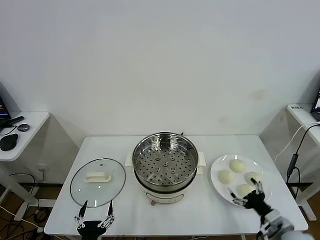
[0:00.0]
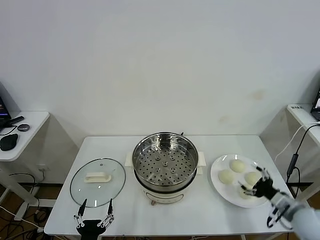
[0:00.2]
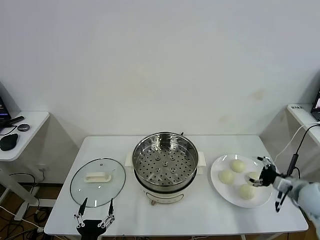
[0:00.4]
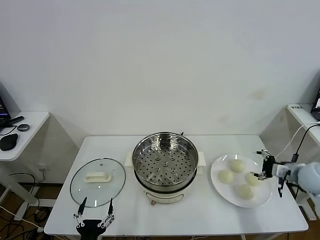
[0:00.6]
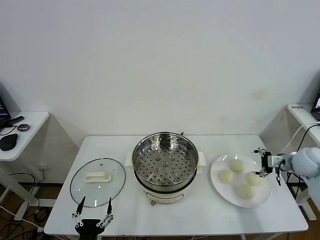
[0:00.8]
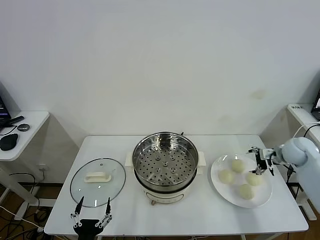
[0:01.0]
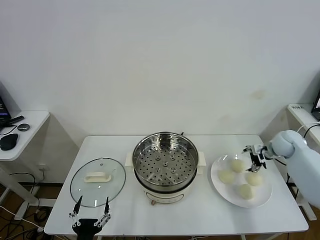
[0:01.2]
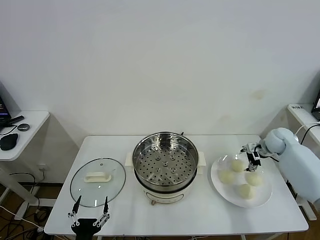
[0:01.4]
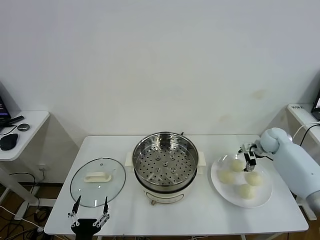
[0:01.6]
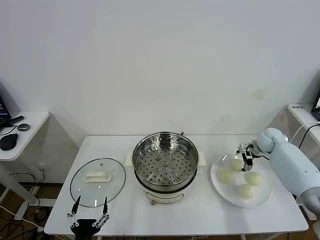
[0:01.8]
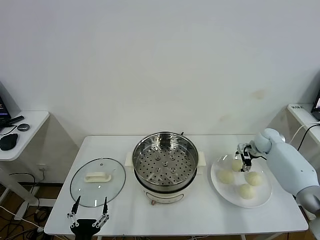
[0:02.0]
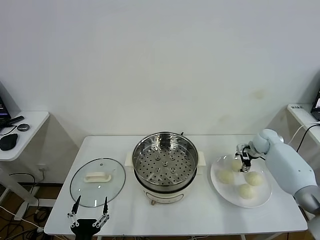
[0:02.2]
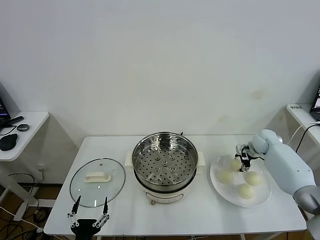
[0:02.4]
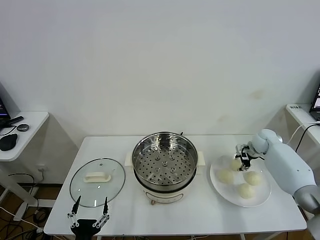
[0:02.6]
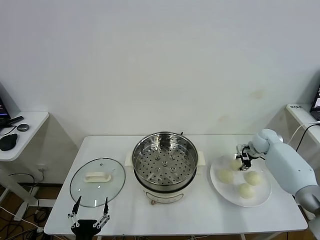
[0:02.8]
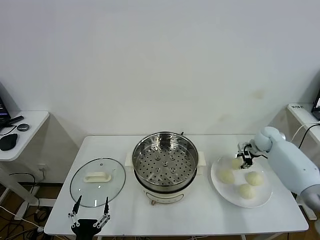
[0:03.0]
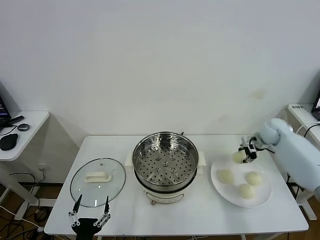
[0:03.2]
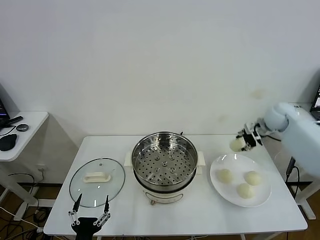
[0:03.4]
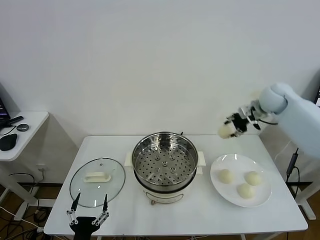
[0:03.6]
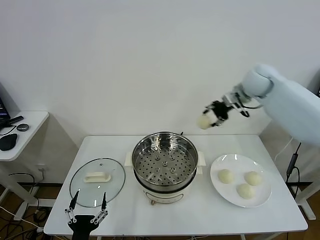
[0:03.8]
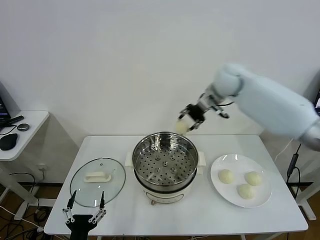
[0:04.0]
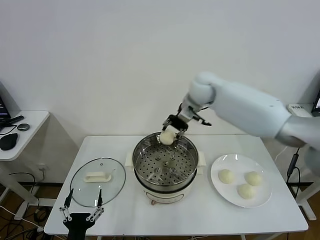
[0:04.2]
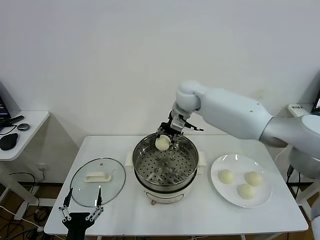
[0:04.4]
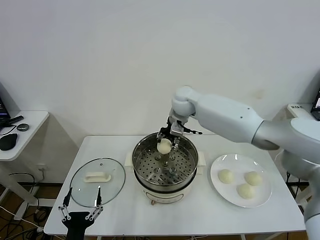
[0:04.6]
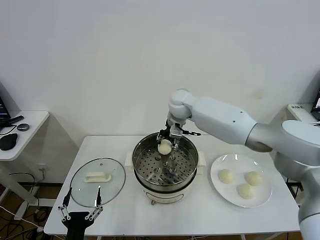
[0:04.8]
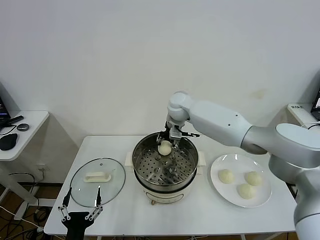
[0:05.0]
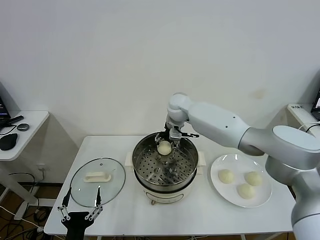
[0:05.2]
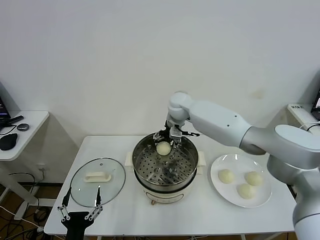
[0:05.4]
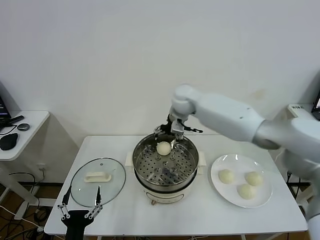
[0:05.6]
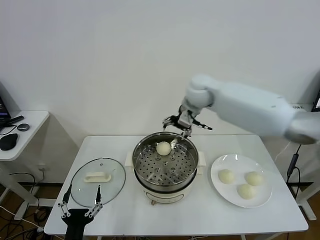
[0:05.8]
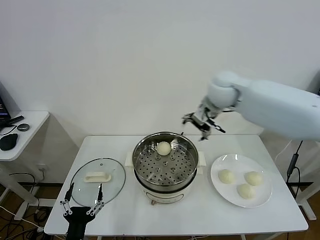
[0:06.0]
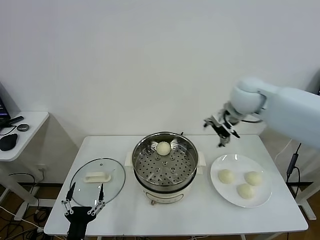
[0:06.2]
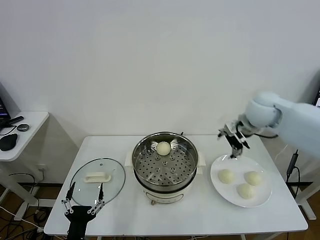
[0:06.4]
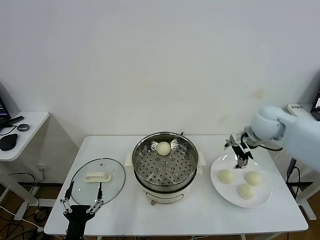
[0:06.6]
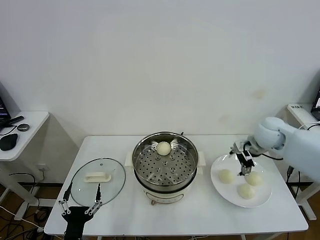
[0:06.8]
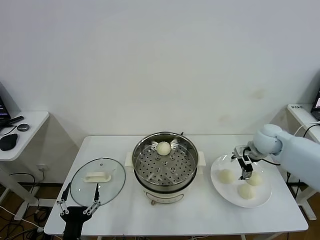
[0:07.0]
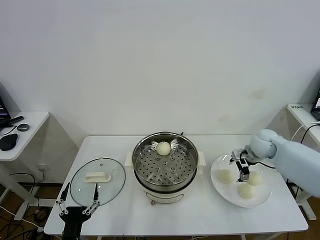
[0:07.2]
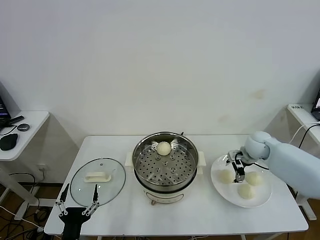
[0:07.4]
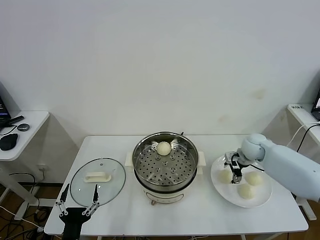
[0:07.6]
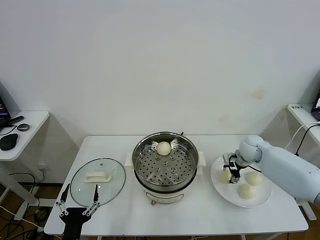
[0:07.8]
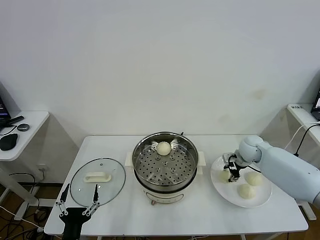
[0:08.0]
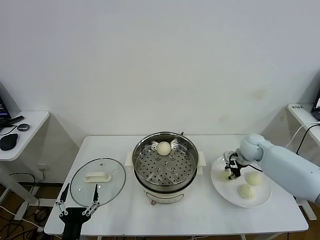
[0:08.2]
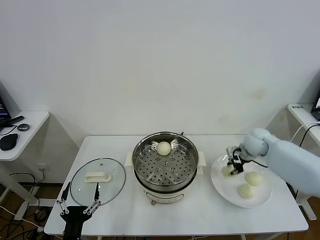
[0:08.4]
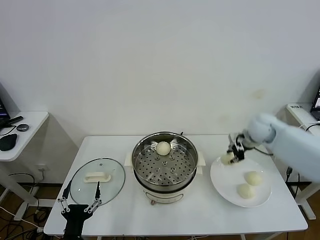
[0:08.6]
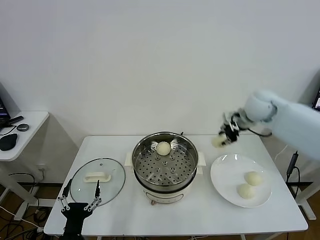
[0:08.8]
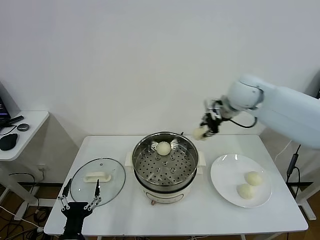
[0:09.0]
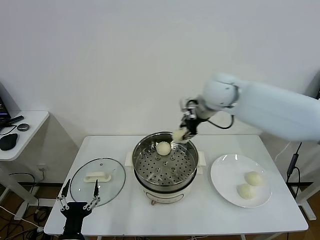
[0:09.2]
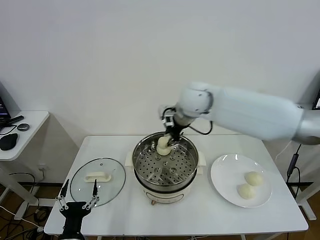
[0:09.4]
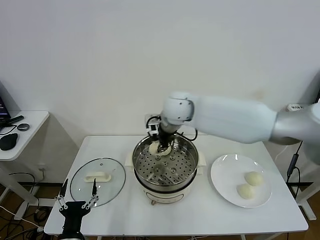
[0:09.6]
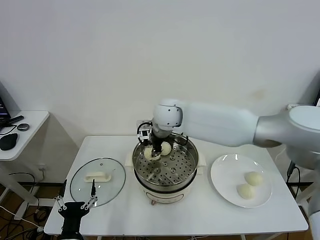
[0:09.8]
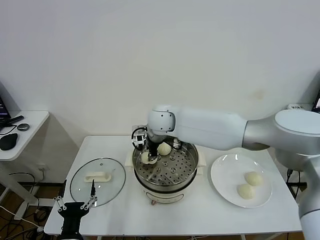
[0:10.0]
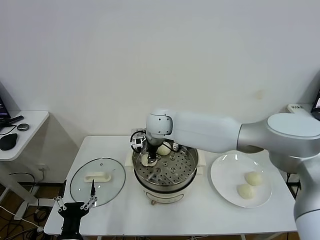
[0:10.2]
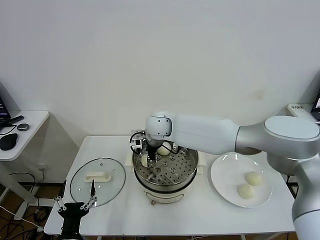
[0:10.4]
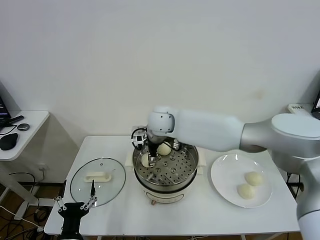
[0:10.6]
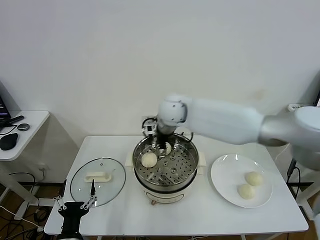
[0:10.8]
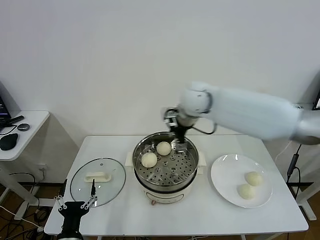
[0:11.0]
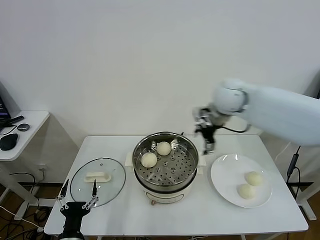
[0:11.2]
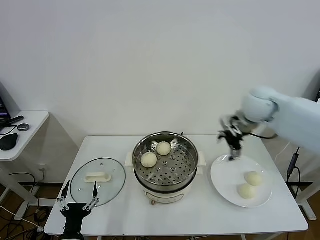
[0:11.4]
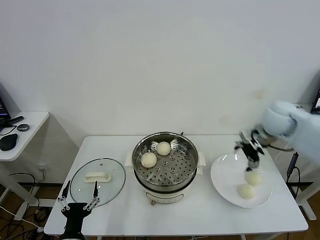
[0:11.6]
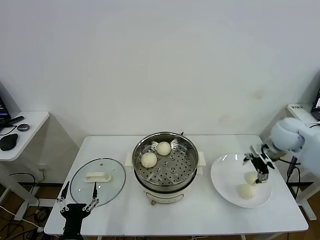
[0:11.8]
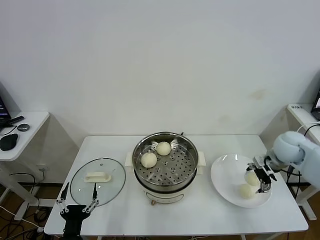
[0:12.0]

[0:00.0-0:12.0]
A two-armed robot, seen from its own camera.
Task of the whole recording: take steamed baozi put them in steamer.
Step, 0.0 to 2.6 s: Grasp the baozi in the plate with right gripper.
Step, 2.8 to 5.4 s: Place the baozi on the steamer with right gripper.
Step, 5.6 to 8.0 s: Grasp the baozi in the plate with right gripper.
Step, 8.2 to 10.6 s: Place the baozi on the steamer with right gripper.
1.6 to 3.0 s: The right gripper closes its fingers.
3.0 to 4.4 s: The right gripper goes some 40 cm to the left and upward.
4.4 to 6.0 s: The right gripper goes approximately 10 cm to the right, upward and backward, and opens.
6.0 to 7.6 s: The right gripper is displaced downward and to the right by about 30 cm.
7.6 to 9.0 s: The right gripper shifts roughly 25 cm upward and to the left, and closes.
9.0 to 10.4 s: The right gripper travels to the left and downward by some 25 cm, and opens its fingers.
10.4 to 12.0 s: The right gripper is displaced to the right by approximately 40 cm, and opens.

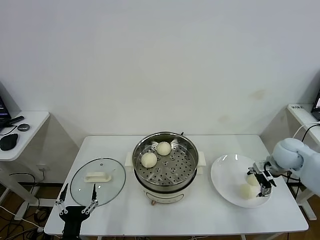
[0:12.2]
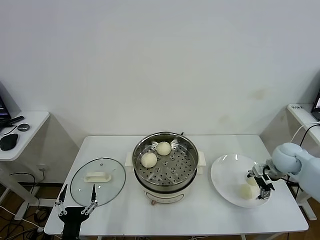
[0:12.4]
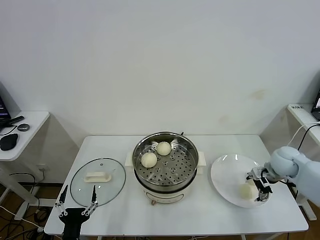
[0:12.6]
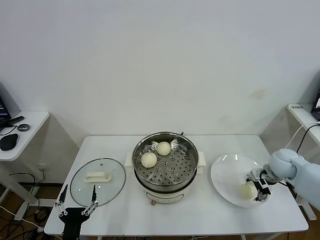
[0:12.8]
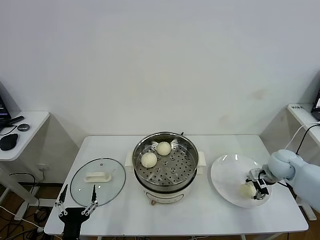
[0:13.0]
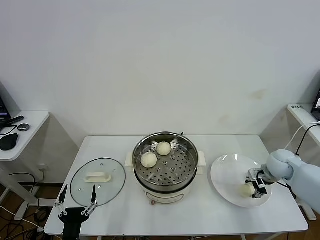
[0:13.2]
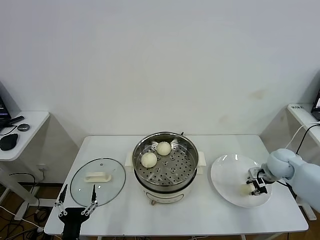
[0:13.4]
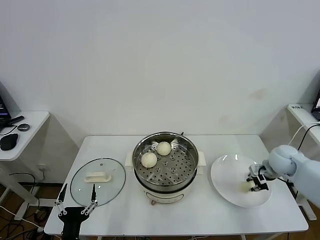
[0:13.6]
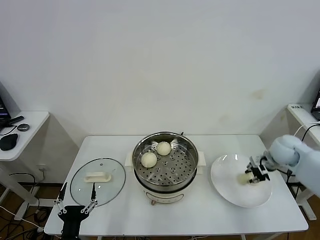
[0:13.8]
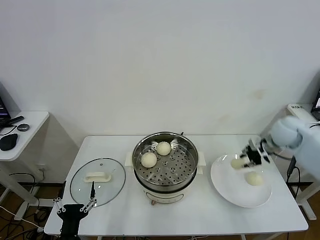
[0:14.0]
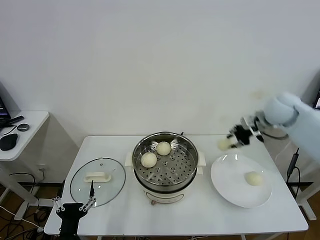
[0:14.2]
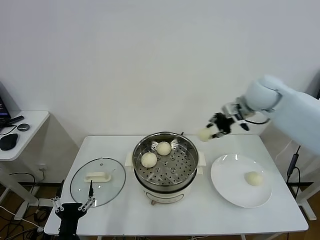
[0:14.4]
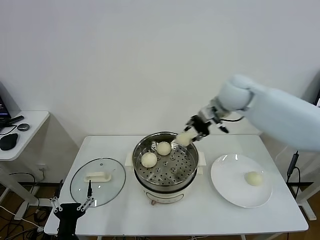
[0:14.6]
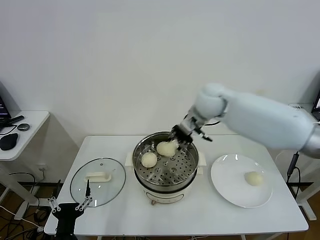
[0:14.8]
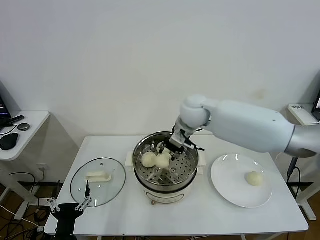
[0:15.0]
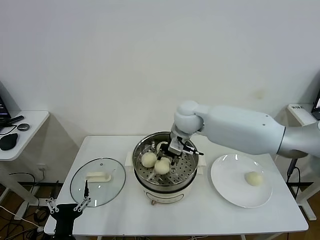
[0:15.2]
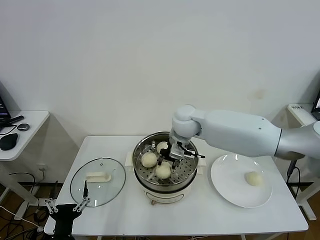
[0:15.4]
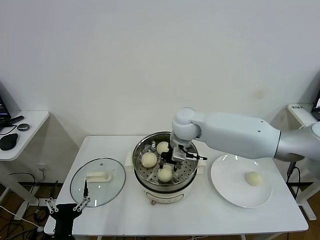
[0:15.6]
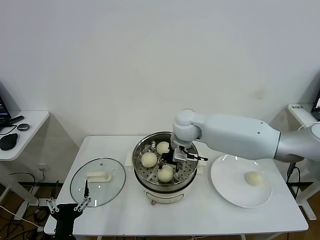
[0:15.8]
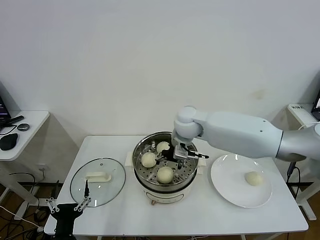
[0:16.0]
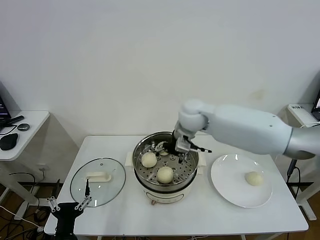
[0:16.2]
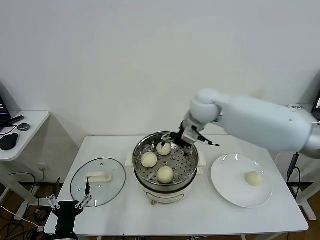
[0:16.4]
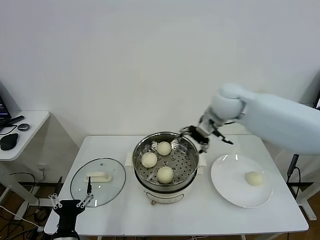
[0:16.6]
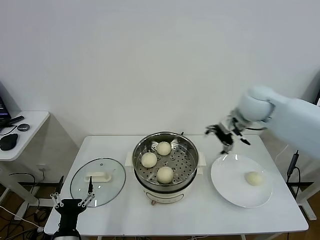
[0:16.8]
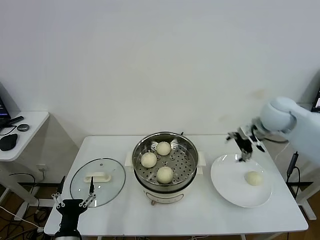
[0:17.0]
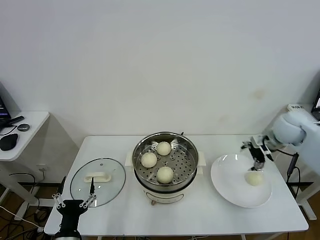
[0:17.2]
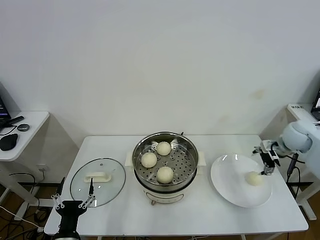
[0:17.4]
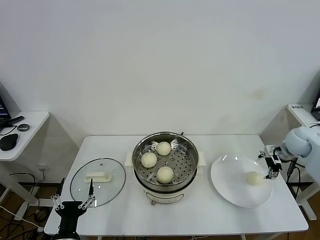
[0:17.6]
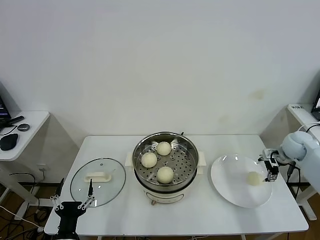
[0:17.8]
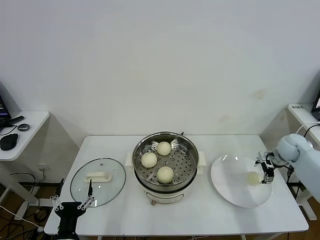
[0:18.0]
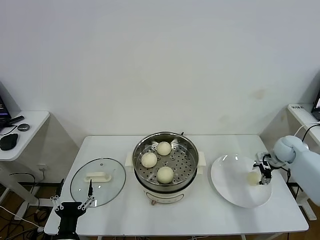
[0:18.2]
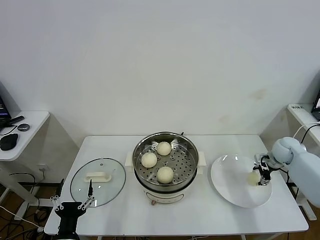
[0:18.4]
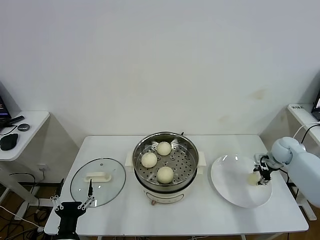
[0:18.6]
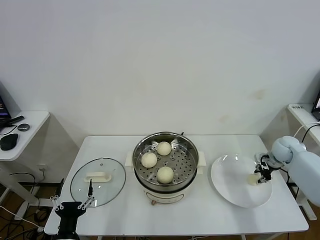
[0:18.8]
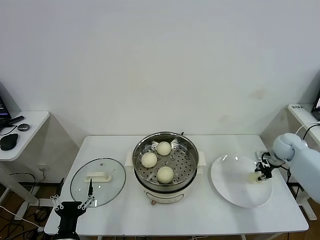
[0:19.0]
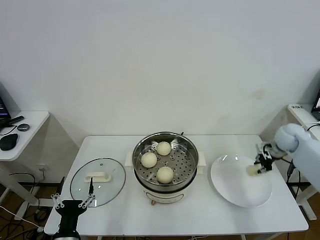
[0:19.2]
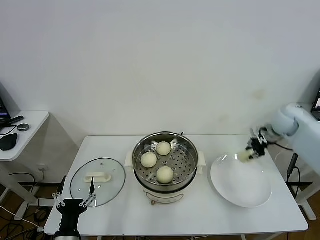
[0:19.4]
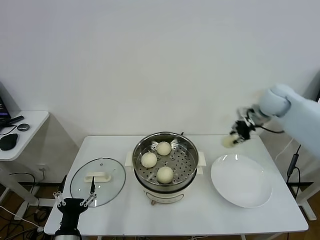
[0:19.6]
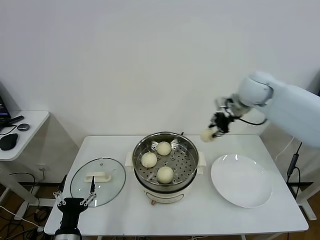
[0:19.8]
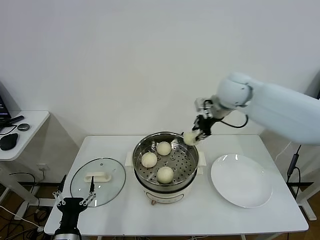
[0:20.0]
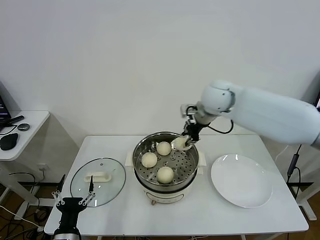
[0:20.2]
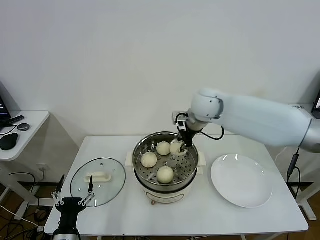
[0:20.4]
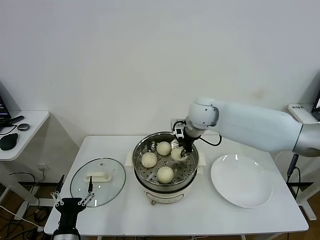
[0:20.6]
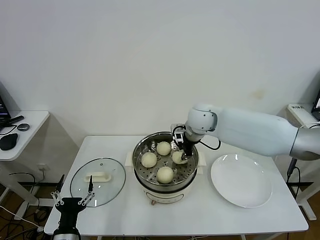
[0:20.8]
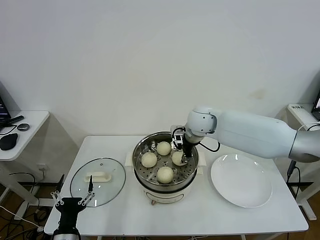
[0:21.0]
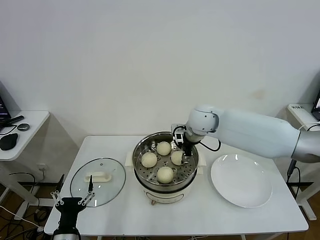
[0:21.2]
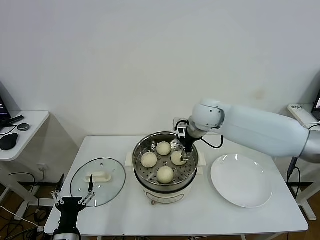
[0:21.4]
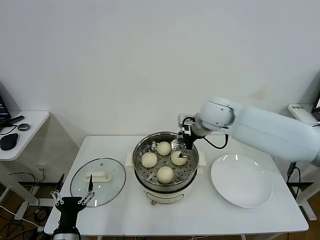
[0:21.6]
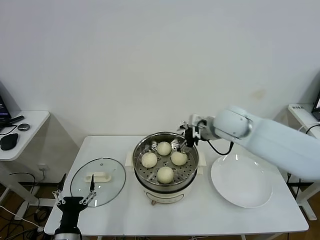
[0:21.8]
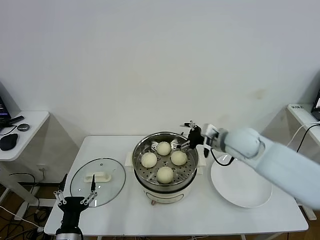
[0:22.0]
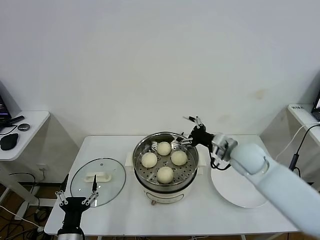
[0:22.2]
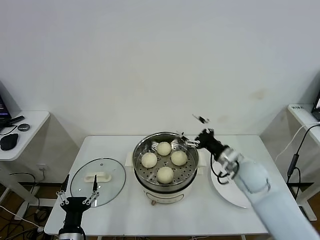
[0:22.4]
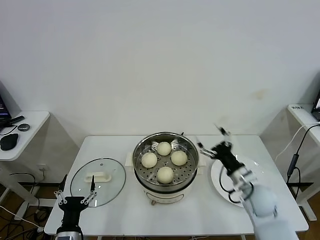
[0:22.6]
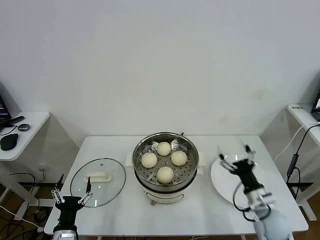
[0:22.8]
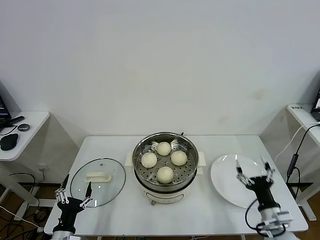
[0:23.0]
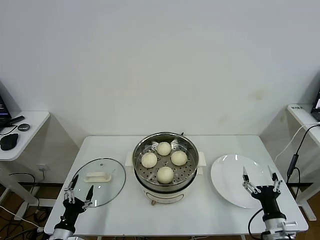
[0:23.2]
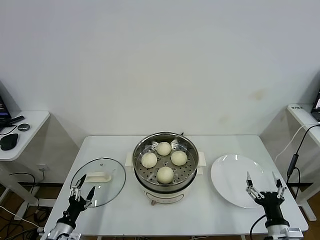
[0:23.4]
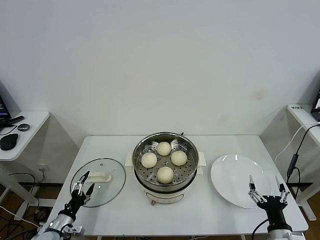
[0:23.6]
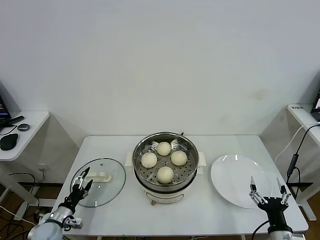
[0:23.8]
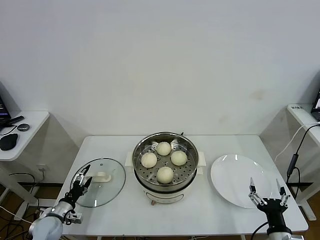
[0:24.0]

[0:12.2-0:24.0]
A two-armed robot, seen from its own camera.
Task of the whole recording: take steamed baozi put them in steamer.
Step, 13.4 to 16.0 s: Place the baozi on the steamer with right gripper.
Step, 16.2 to 18.4 s: Grasp the baozi in the plate with right gripper.
Step, 18.6 to 21.2 s: Place the baozi on the steamer with right gripper.
12.2 to 13.6 s: The right gripper closes its fingers.
13.6 to 15.2 s: The right gripper shifts roughly 35 cm to the left and upward.
15.2 to 16.6 s: The right gripper shifts some 10 cm to the right and upward, and opens.
16.6 to 18.2 s: The right gripper travels to the right and downward by roughly 35 cm.
18.2 to 19.6 s: The right gripper goes roughly 20 cm upward and to the left, and closes its fingers.
19.6 to 21.0 s: The right gripper shifts about 25 cm to the left.
21.0 to 22.6 s: The right gripper heads backward, to the right and downward, covering roughly 30 cm, and opens its fingers.
22.6 to 24.0 s: The right gripper moves backward, roughly 20 cm. Meanwhile the left gripper goes roughly 20 cm to the left, forward and downward.
